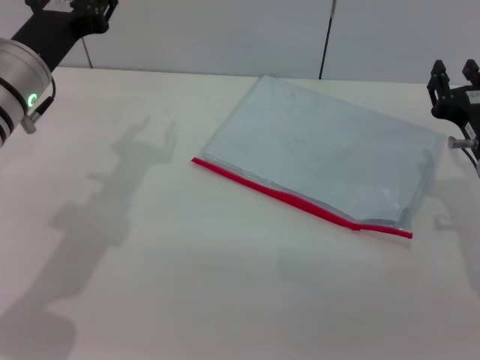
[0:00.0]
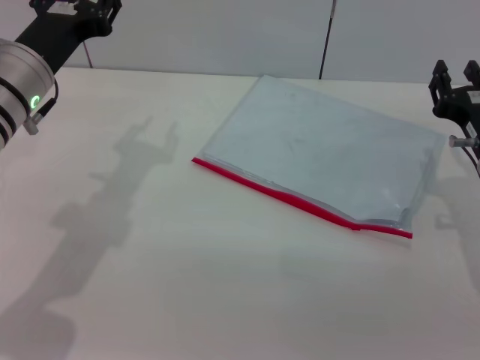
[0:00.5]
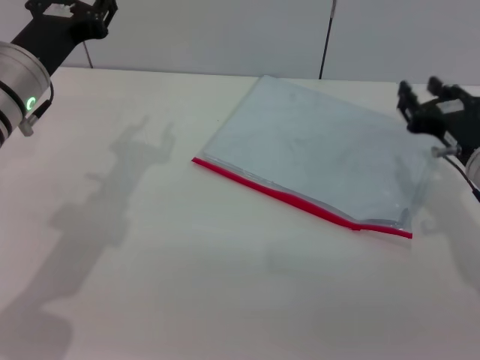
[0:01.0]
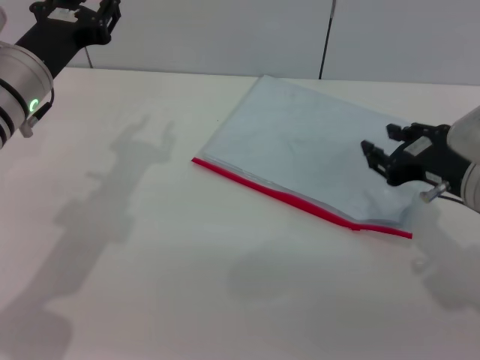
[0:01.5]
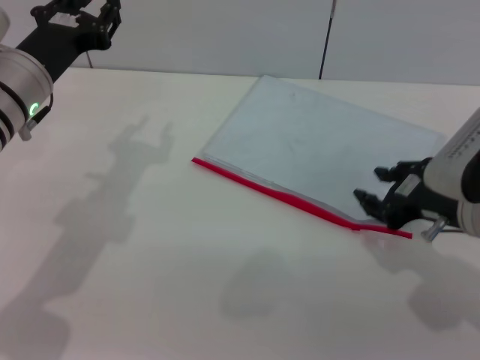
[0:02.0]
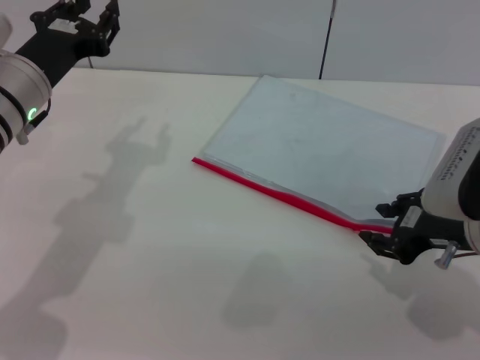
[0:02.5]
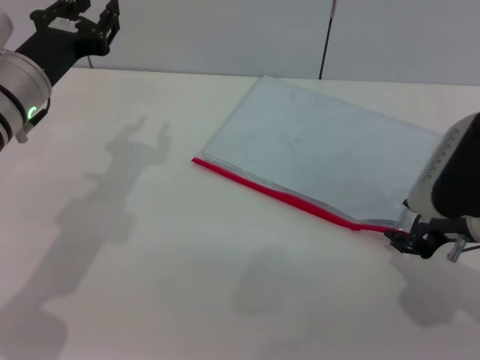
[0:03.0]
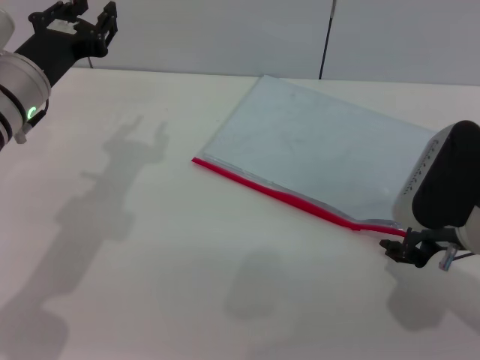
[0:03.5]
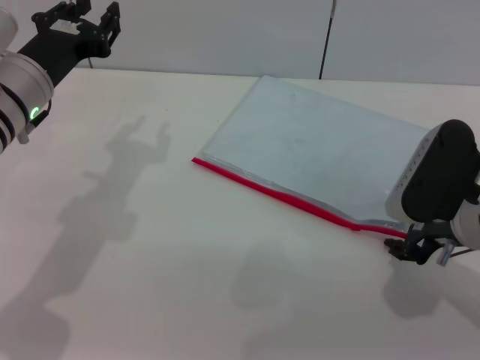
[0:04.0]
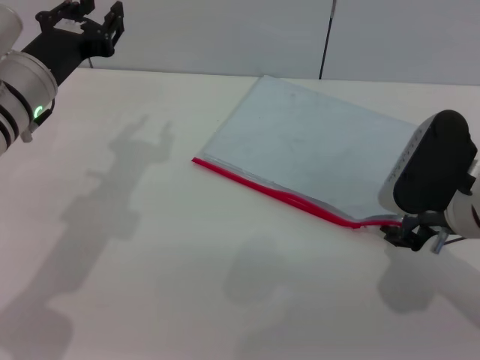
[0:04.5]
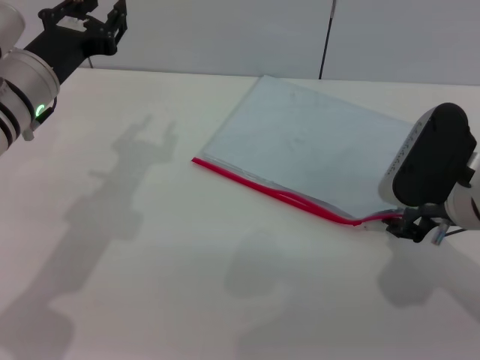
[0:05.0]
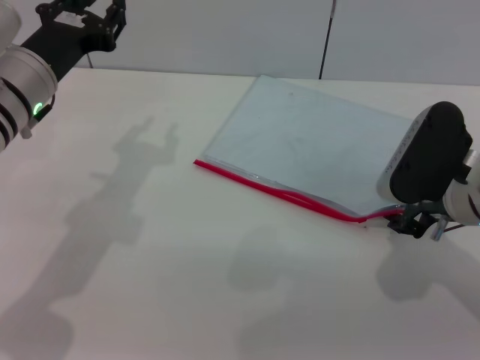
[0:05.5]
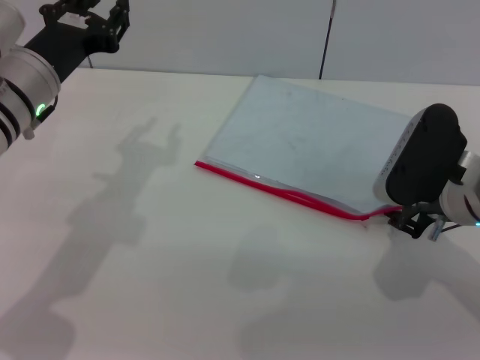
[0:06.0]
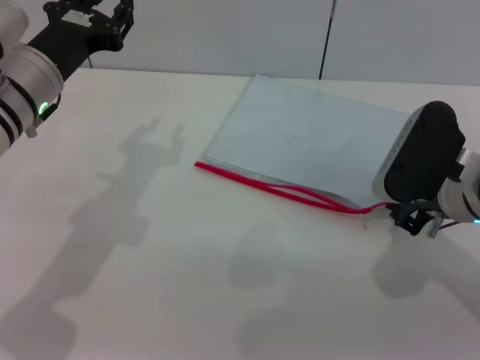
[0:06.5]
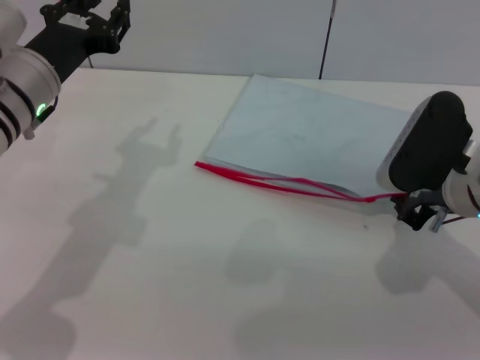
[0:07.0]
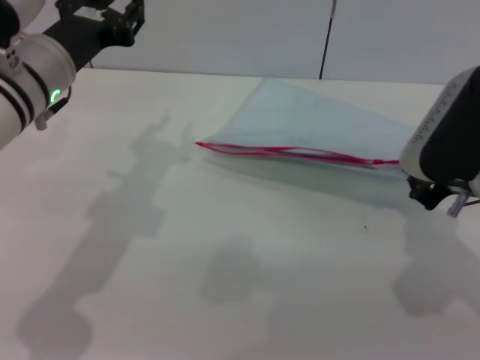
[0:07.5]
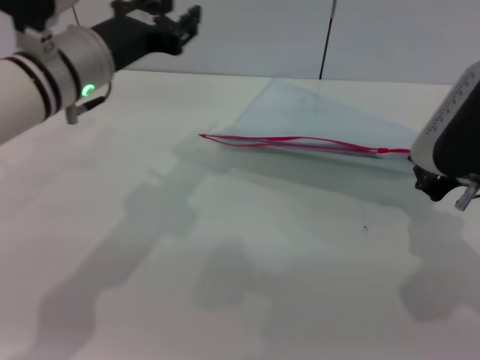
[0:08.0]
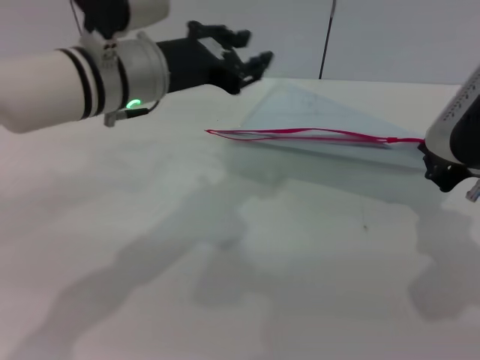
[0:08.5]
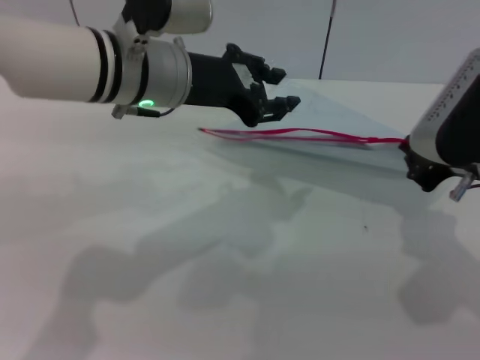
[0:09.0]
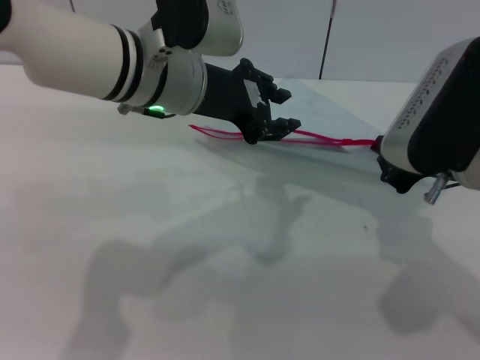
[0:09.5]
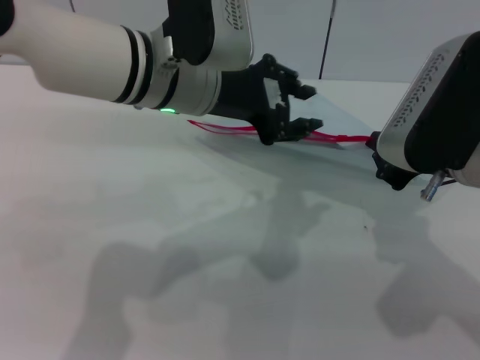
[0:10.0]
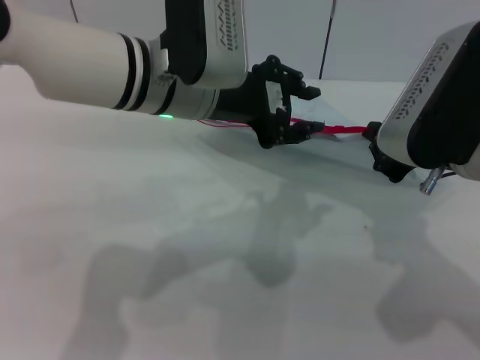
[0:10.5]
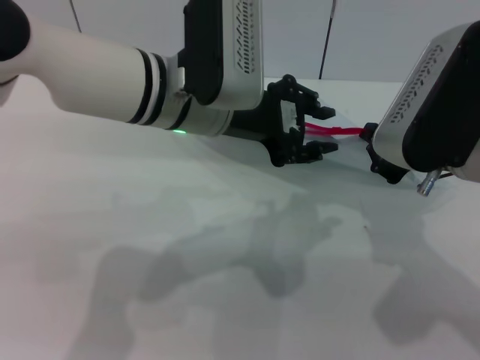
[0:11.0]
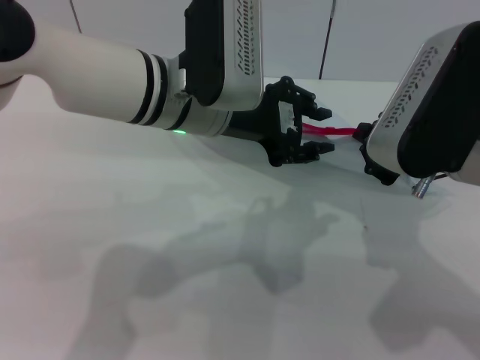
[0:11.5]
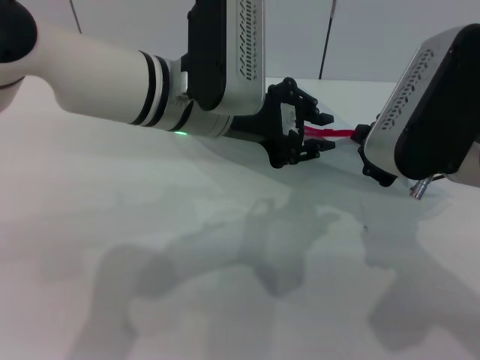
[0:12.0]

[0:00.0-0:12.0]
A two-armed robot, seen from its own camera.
Step, 0:00.0 to 0:08.5: Pick up the transparent plastic bag with the right gripper.
0:00.0 to 0:02.0: The right gripper changes place by approximately 5 cm.
0:04.0 to 0:06.0: The grippers stay close to where they were, moving slightly.
0:06.0 to 0:08.0: The right gripper heads upward, covering approximately 5 cm, and closes its fingers, while the left gripper ends up some 5 cm from where it was.
0:08.0 to 0:10.0: The left gripper moves to the right, approximately 10 cm.
0:10.0 to 0:12.0: The grippers move only a little.

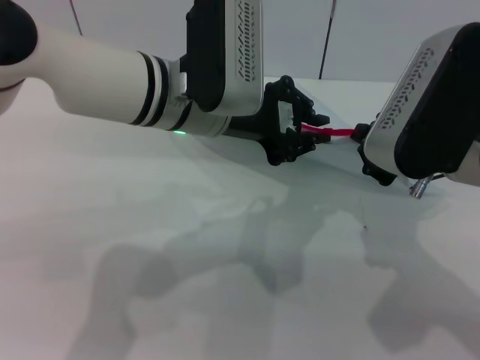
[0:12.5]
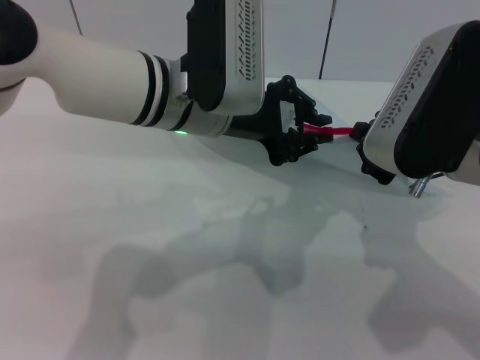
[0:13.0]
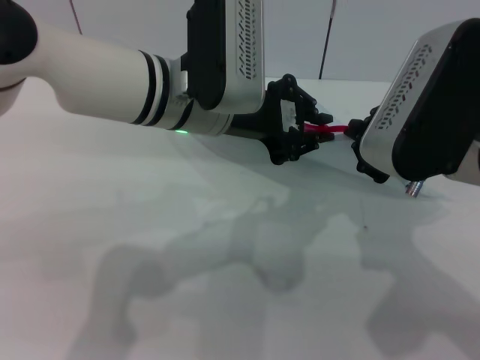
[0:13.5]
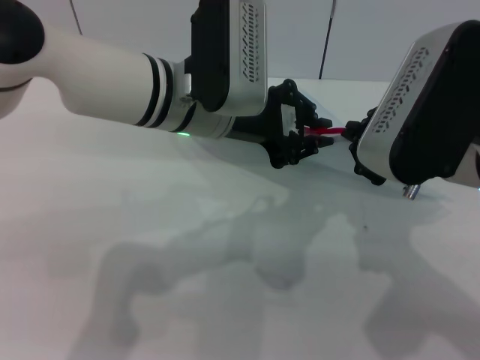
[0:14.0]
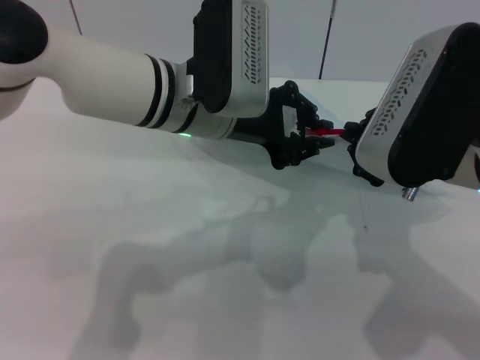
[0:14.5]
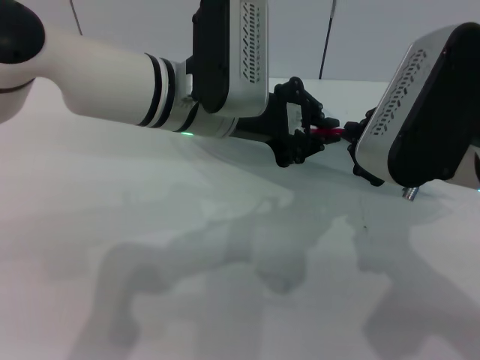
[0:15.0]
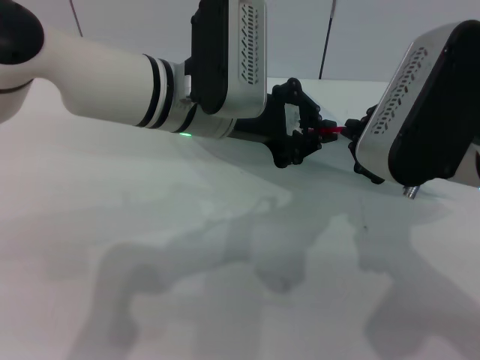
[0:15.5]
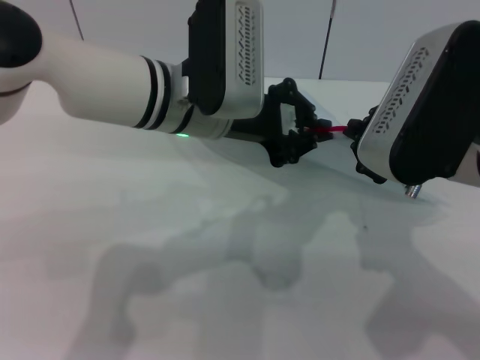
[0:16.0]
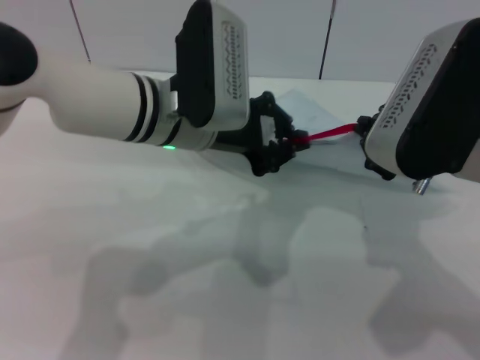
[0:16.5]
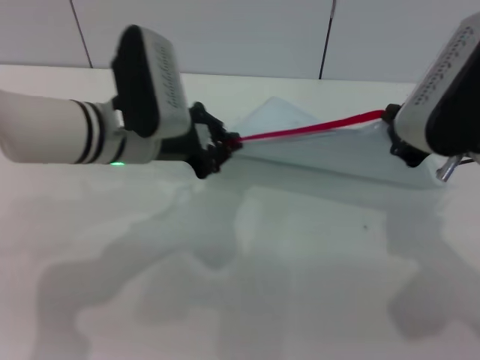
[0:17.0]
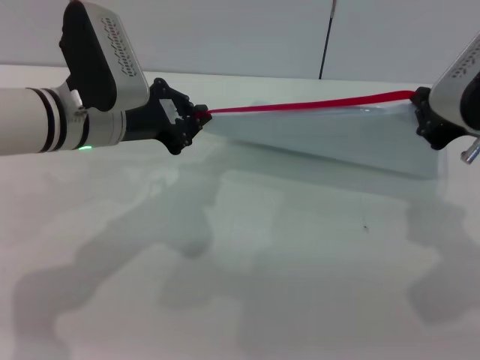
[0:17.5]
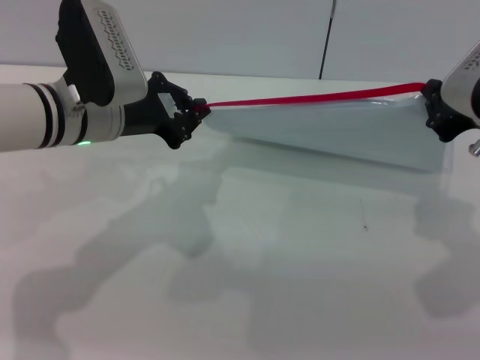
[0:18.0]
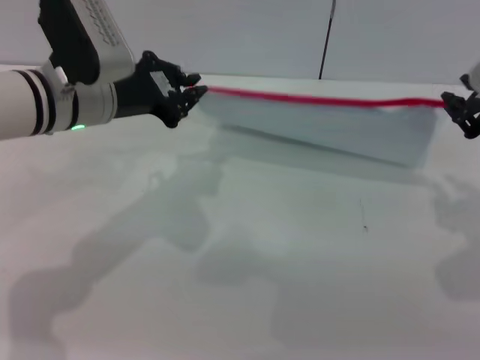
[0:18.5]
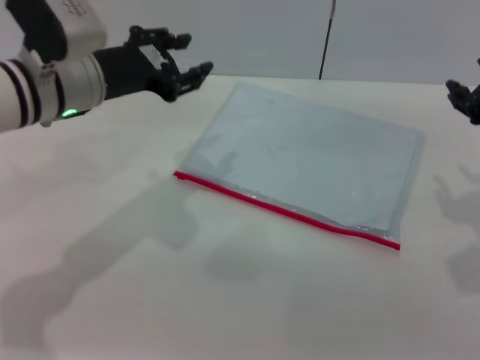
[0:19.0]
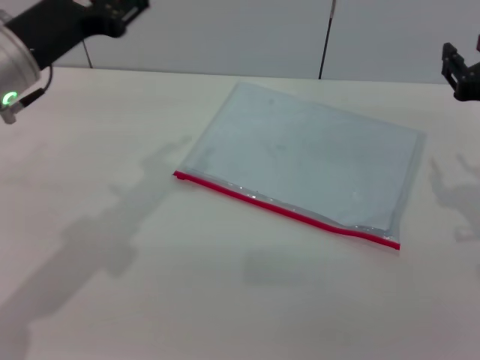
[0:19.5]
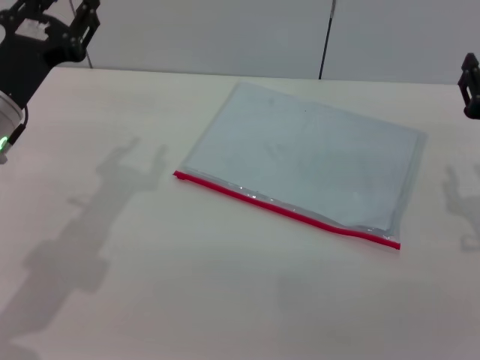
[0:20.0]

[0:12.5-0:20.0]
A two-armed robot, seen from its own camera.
Step, 0:12.5 to 0:18.0: Pulling up the zipper on the transparent plastic bag with the left gripper to close it.
Step, 0:18.5 to 0:19.0: Place the transparent plastic bag.
0:12.5 to 0:14.5: Both grippers stay about where they are.
0:14.5 to 0:16.5: The grippers stay close to where they were, moving slightly.
0:16.5 to 0:18.0: The right gripper shifts by approximately 5 cm, while the left gripper travels to the left by about 10 cm.
0:18.0 to 0:20.0: The left gripper shifts about 10 cm to the left and backward, and opens. Meanwhile the right gripper is displaced downward by approximately 10 cm, and opens.
